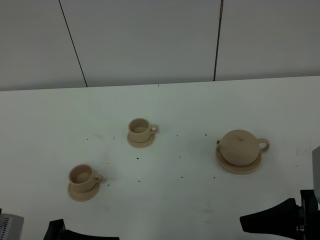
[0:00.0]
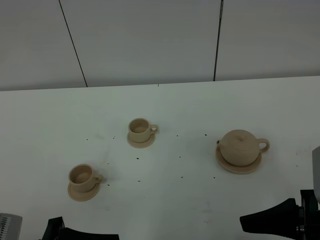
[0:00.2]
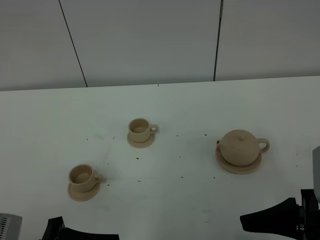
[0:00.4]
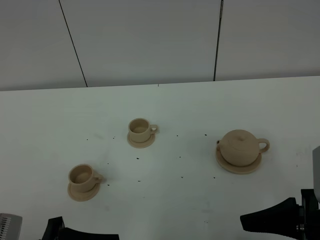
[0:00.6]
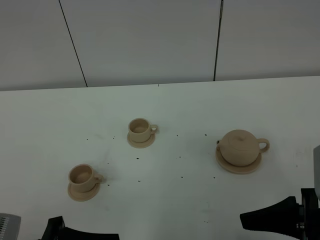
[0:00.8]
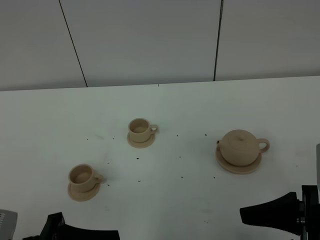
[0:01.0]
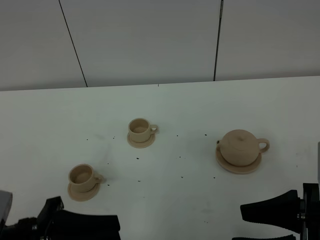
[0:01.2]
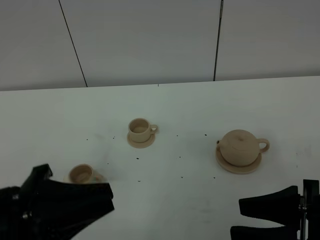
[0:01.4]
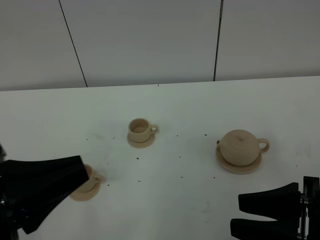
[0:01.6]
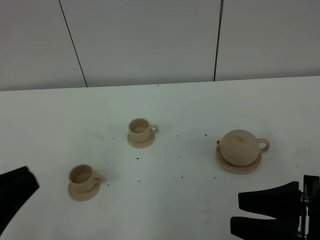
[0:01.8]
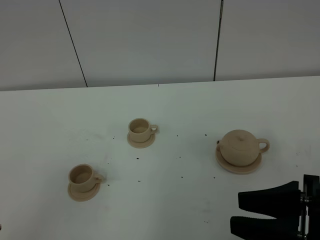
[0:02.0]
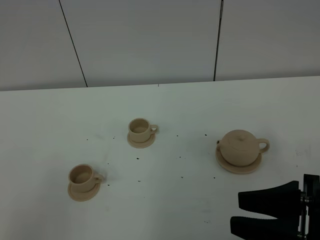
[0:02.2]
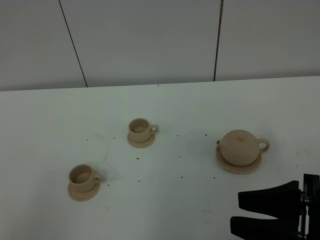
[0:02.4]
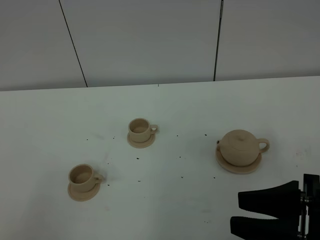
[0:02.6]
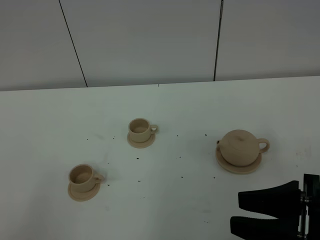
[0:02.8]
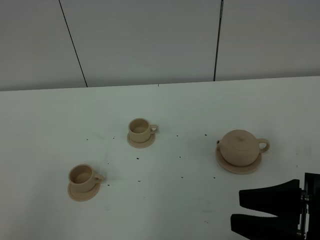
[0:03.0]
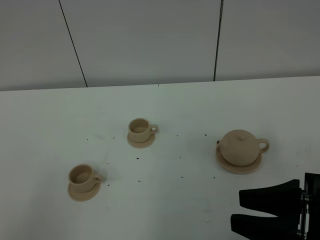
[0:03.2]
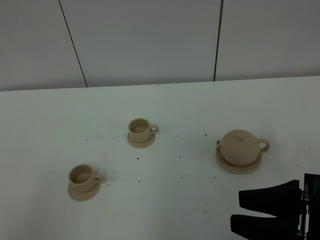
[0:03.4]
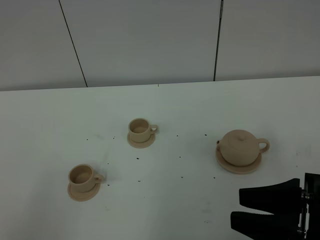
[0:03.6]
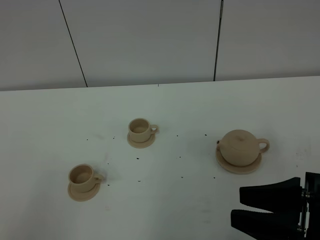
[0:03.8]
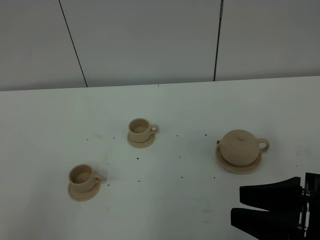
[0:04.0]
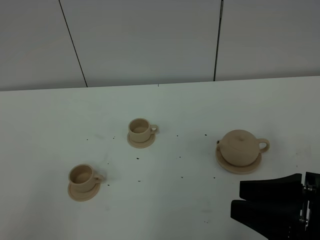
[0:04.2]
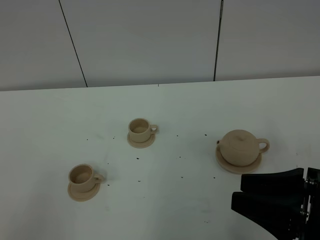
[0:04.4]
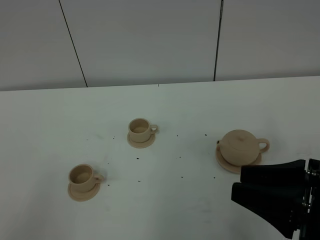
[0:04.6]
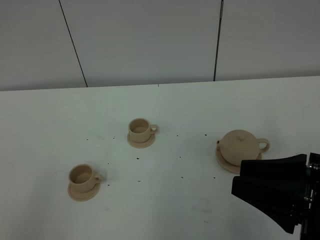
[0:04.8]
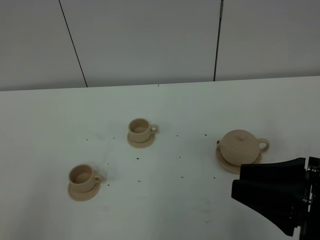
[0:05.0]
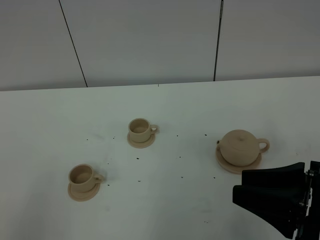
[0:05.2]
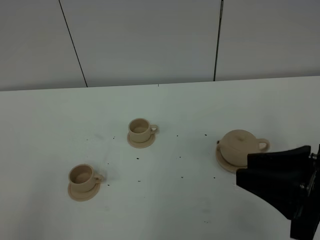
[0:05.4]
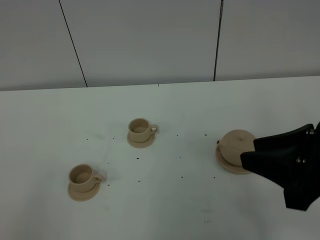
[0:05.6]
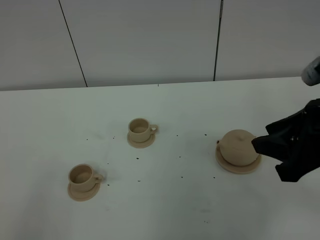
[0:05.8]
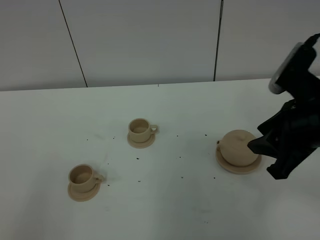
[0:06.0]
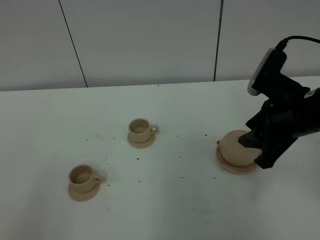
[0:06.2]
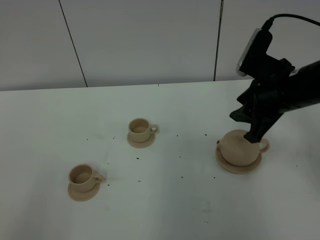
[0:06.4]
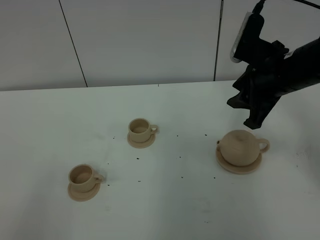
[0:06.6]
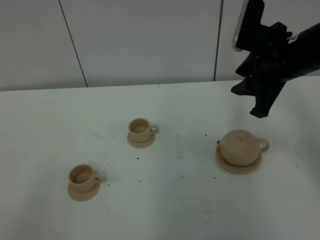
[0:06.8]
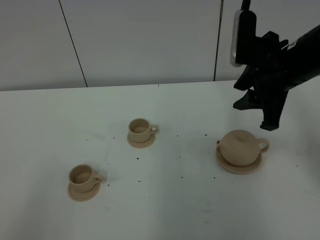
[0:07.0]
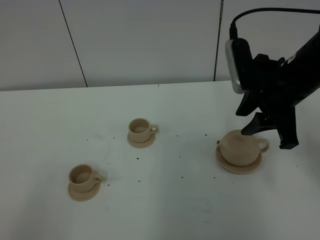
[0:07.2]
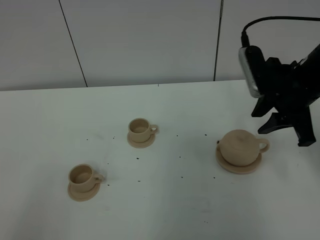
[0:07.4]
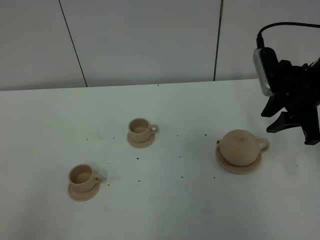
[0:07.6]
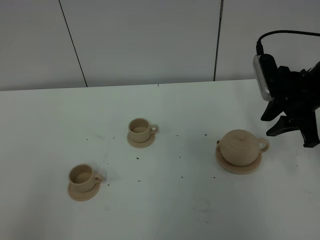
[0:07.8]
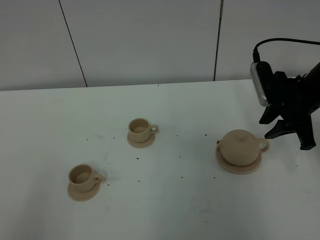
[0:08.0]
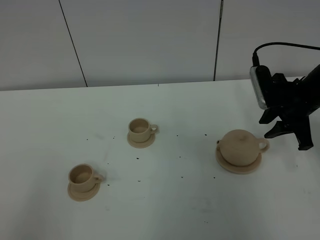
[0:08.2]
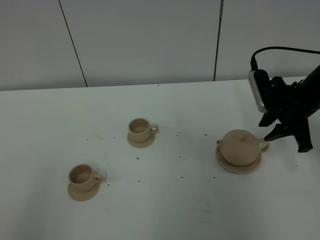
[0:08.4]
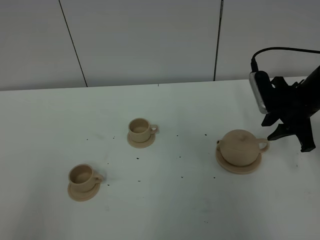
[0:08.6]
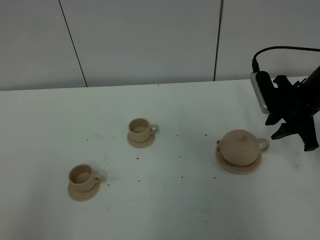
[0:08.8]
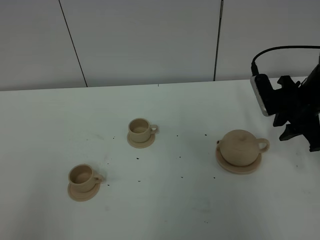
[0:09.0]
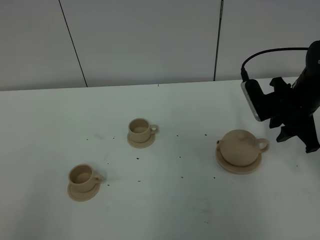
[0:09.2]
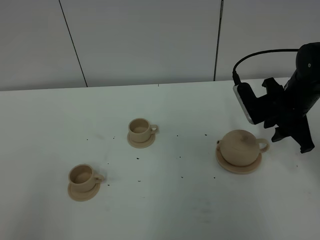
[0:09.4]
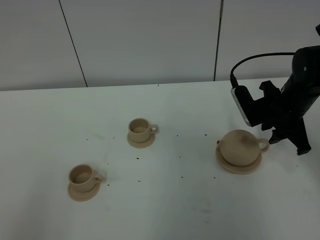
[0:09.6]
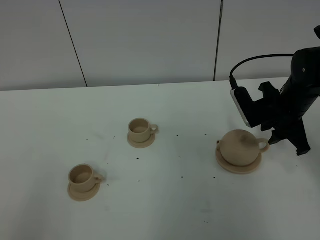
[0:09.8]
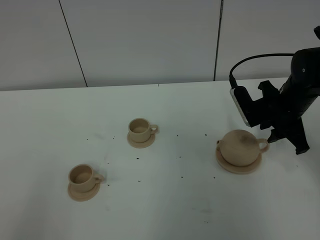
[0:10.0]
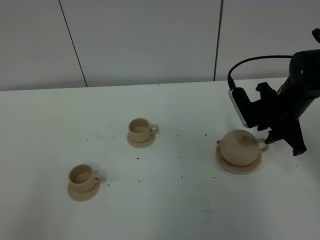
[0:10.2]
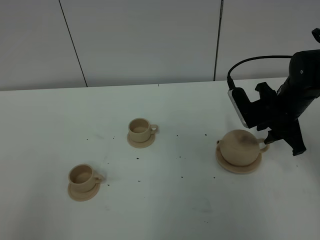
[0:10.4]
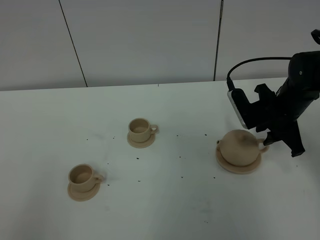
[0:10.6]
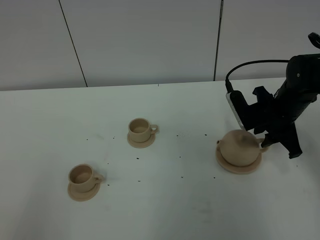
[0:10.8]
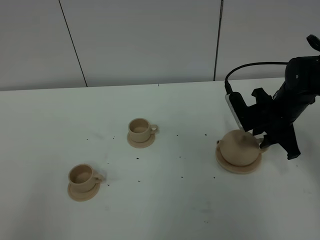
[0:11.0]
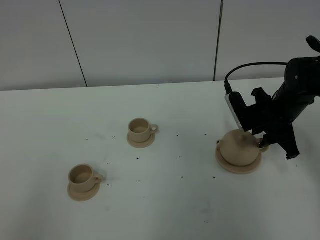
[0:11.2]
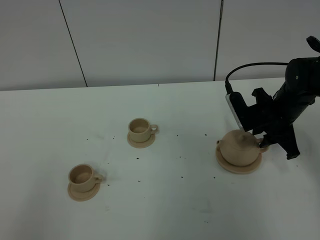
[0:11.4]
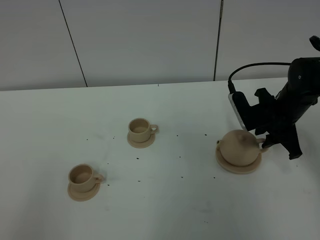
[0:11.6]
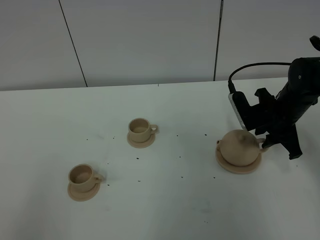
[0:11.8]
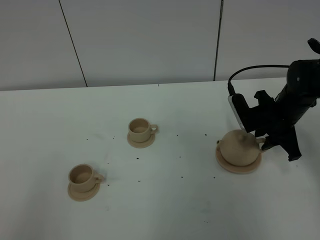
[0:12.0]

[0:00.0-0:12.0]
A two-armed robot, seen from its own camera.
Task of the whole recording: grasp the brown teapot and pour the tea into the two brown teacups one by one, put the brown teapot back in its original place.
0:00.0 to 0:01.6: The left gripper goes about 10 cm upward, and closes its fingers.
0:01.6 to 0:03.0: The left gripper travels backward and to the left by some 15 cm, and closes its fingers.
0:03.0 to 0:04.4: The grippers stay close to where they were, moving slightly.
0:04.4 to 0:06.0: The right gripper moves forward, roughly 15 cm.
0:06.0 to 0:07.6: The right gripper heads forward, covering about 10 cm.
0:07.6 to 0:09.0: The right gripper shifts some 5 cm downward.
0:09.0 to 0:12.0: The grippers move only a little.

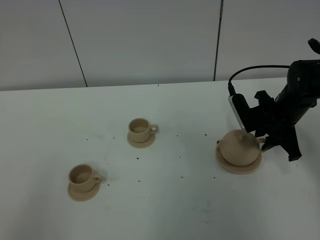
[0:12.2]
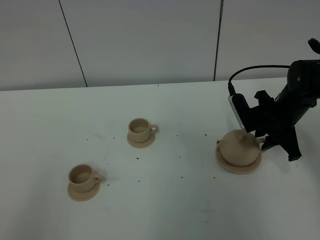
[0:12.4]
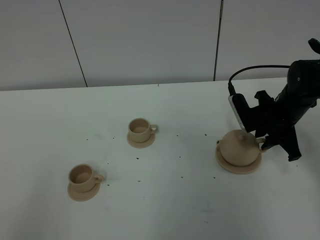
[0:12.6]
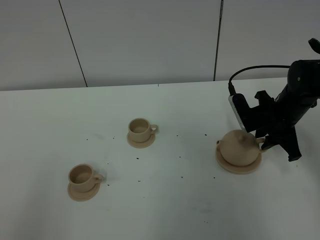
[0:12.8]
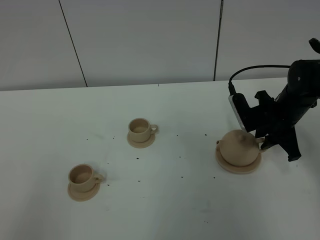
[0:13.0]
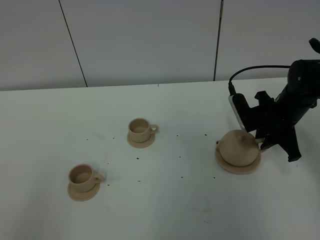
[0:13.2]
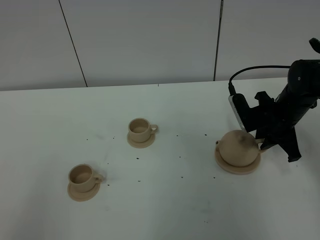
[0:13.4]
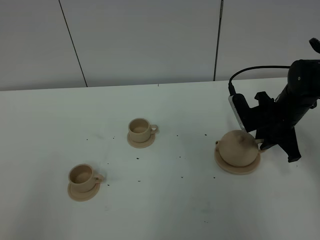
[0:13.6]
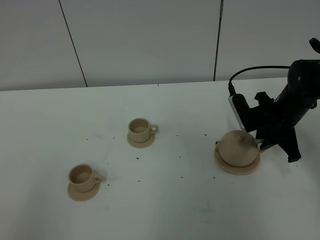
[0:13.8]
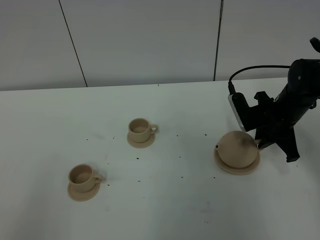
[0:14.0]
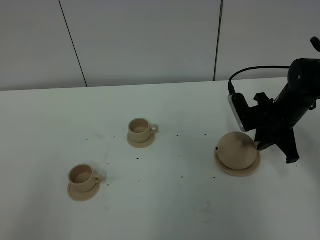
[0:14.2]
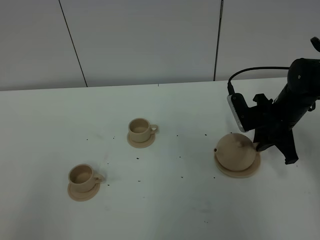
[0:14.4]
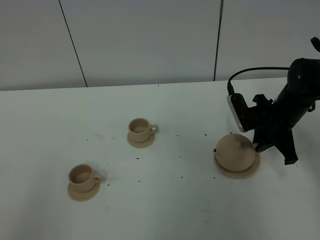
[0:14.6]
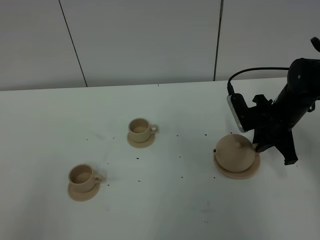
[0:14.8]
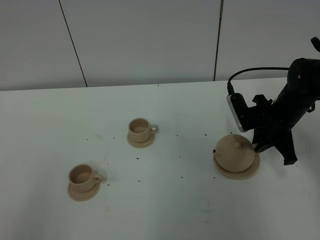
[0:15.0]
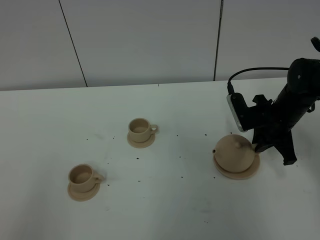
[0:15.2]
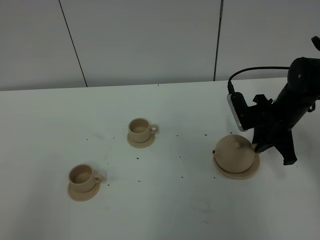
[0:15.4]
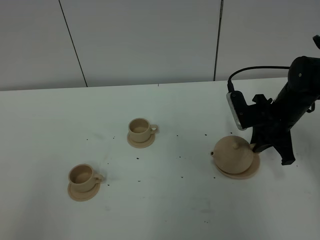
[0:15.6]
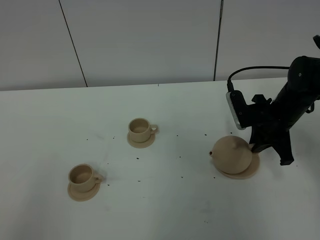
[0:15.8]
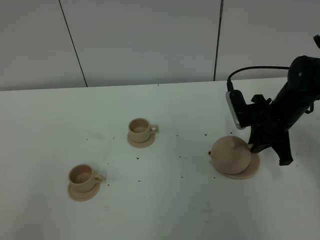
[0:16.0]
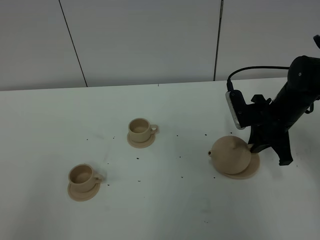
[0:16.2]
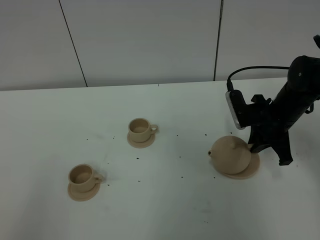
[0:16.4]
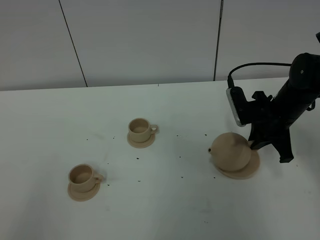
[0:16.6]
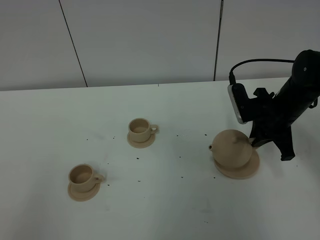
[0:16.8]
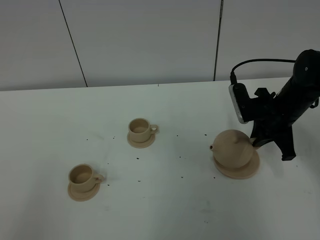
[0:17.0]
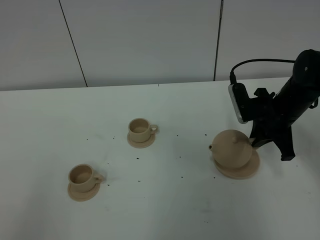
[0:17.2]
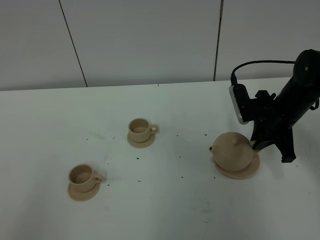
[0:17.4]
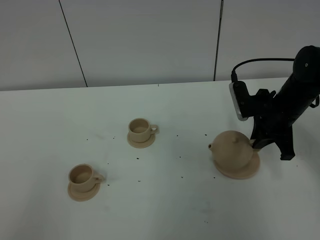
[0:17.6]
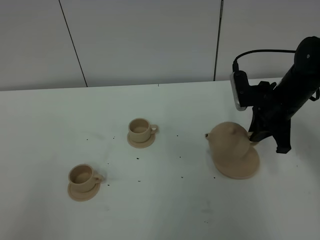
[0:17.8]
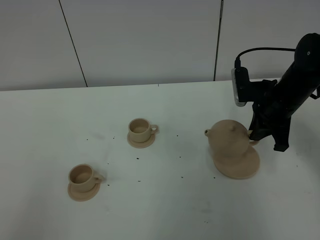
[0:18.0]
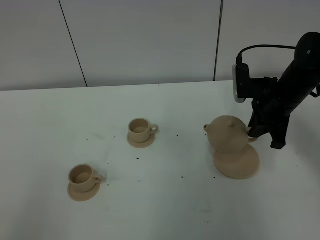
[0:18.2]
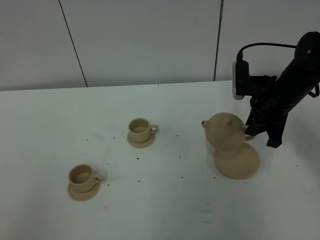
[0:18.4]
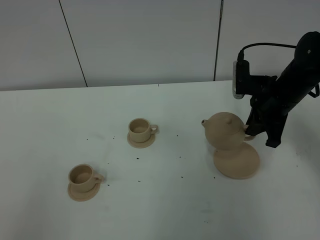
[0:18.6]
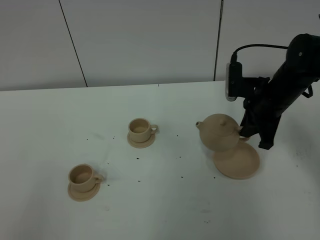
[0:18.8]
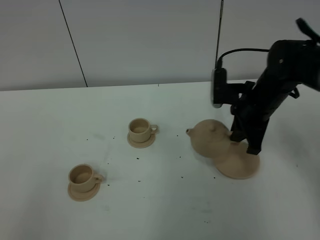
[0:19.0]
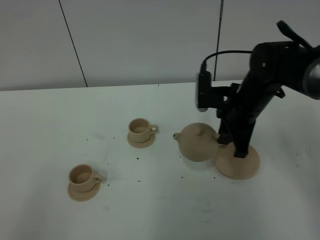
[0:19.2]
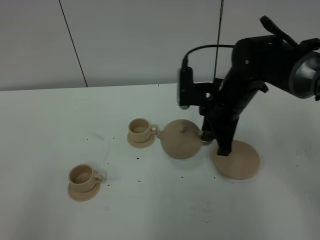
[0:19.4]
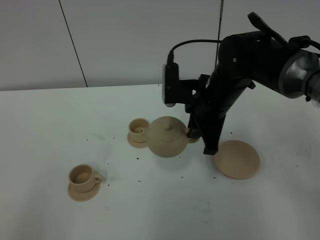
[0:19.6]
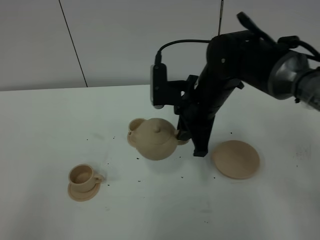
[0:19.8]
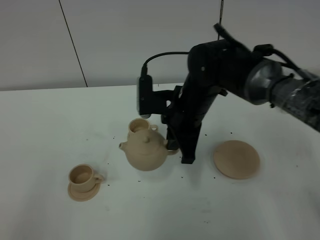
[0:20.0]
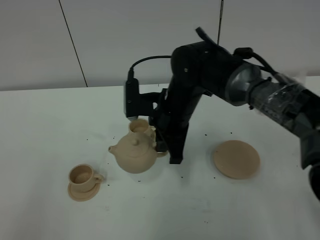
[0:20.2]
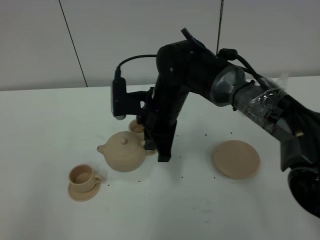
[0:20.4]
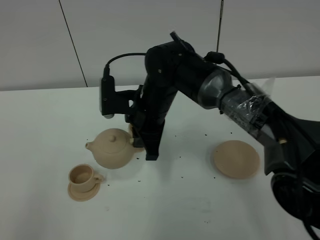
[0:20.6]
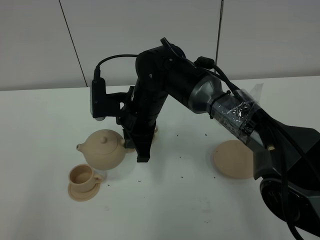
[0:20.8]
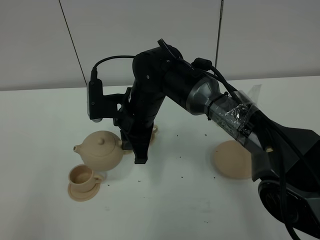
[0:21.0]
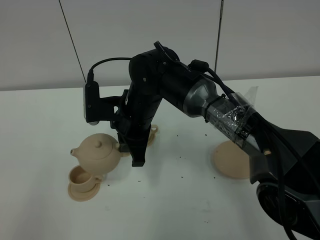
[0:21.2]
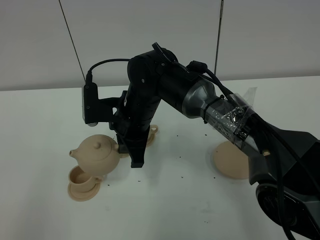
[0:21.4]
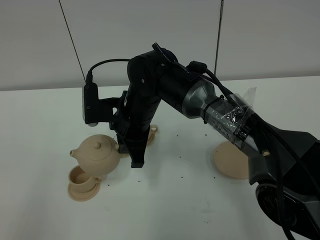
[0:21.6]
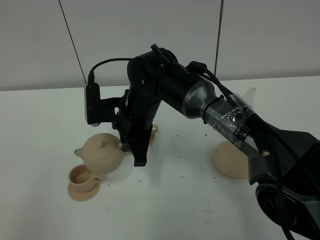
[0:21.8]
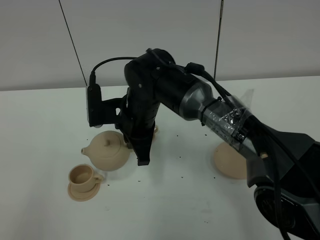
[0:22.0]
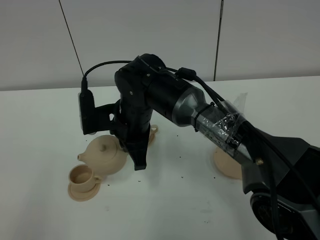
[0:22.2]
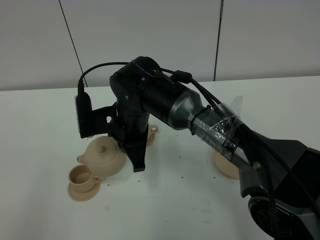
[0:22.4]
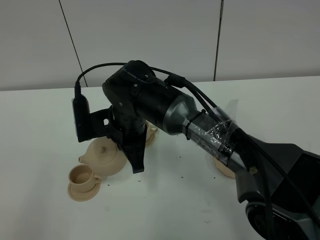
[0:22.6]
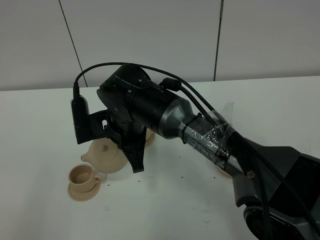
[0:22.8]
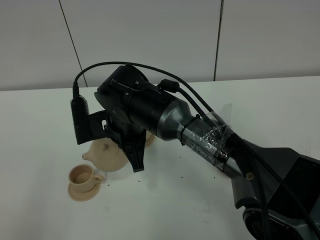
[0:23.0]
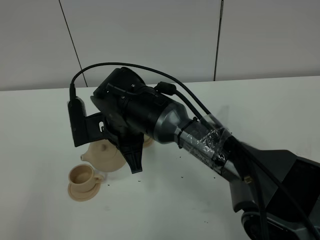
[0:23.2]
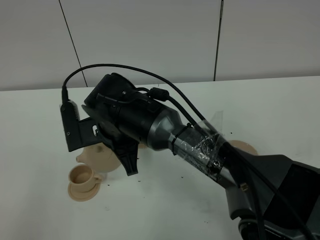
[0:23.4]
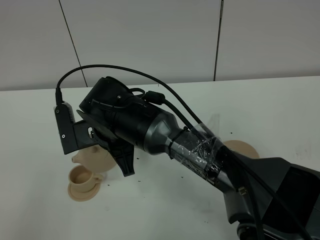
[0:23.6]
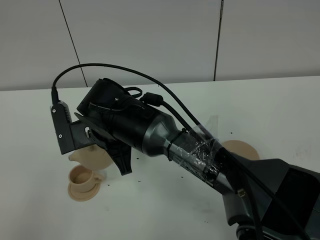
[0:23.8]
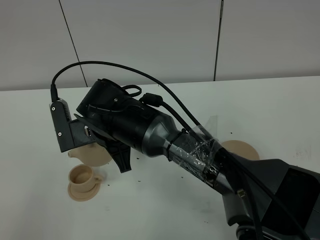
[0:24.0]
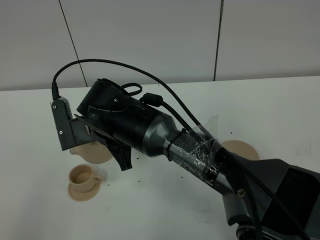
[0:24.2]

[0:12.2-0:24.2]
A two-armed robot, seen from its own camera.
Task of the whole recording: grasp the brown teapot and pour the tea into the two brown teacups one by one, put the brown teapot back in its original place.
Step, 0:12.2 to 0:17.6: Pick up the teapot with the right gripper.
0:12.2 to 0:13.8: The right gripper closes.
0:13.8 to 0:16.6: The grippers make only small movements.
0:16.6 to 0:18.2: The grippers move only a little.
0:18.2 to 0:19.8: The right gripper moves to the left, some 15 cm.
0:19.8 to 0:21.2: The right gripper shifts roughly 10 cm to the left.
0:21.2 to 0:22.6: There are only small adjustments of the grippers.
